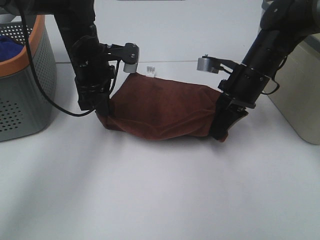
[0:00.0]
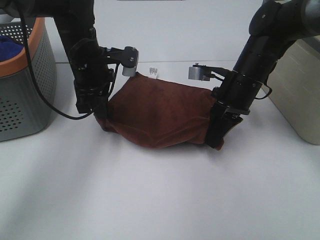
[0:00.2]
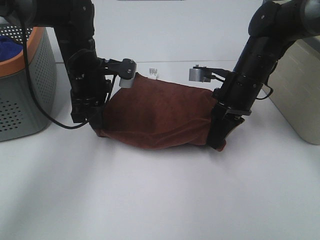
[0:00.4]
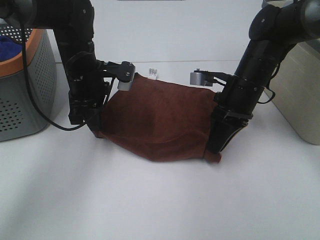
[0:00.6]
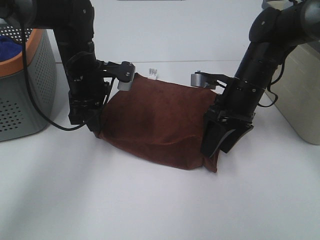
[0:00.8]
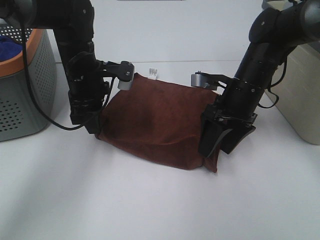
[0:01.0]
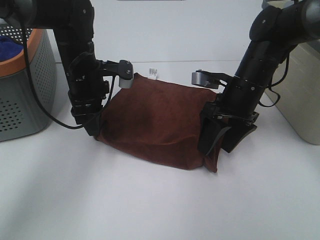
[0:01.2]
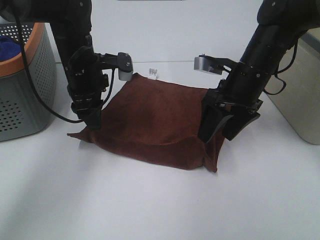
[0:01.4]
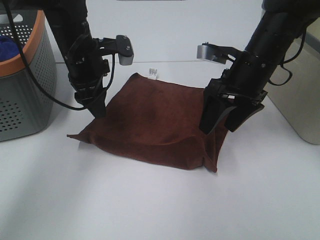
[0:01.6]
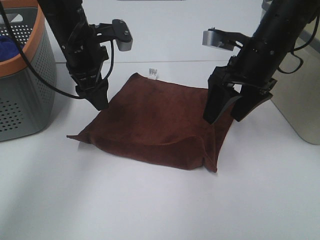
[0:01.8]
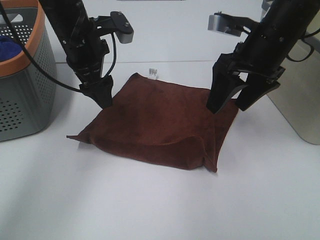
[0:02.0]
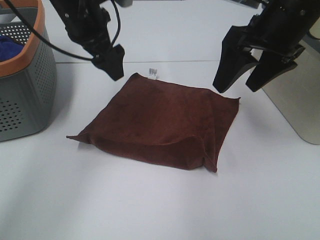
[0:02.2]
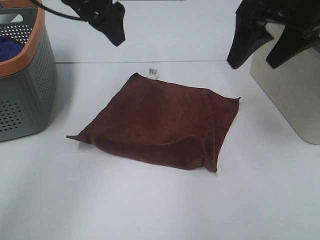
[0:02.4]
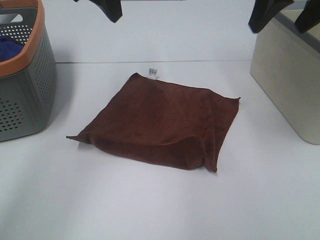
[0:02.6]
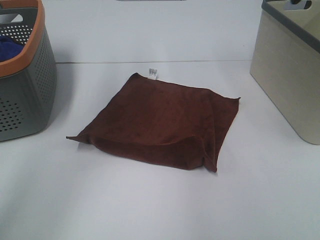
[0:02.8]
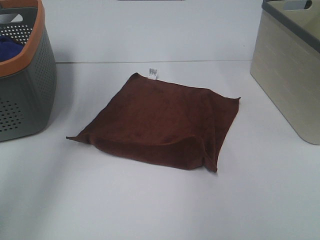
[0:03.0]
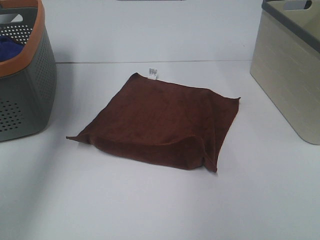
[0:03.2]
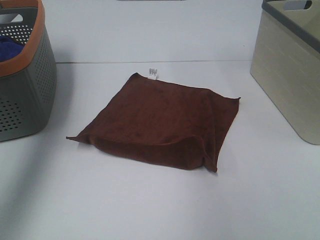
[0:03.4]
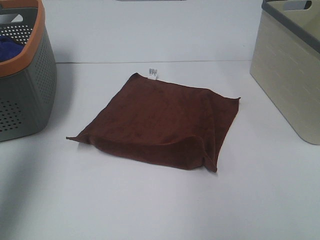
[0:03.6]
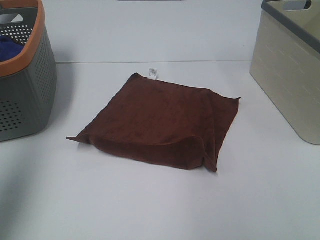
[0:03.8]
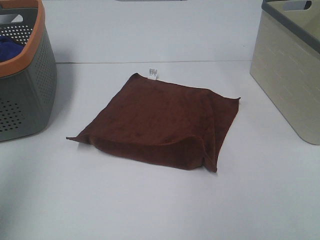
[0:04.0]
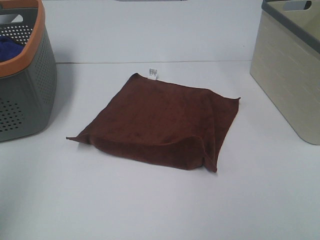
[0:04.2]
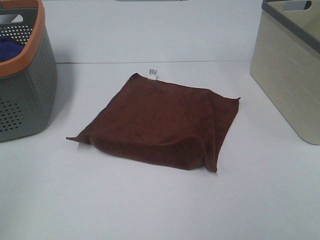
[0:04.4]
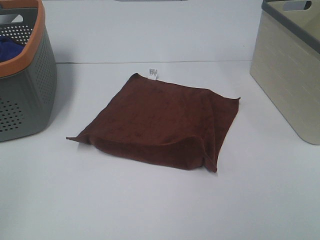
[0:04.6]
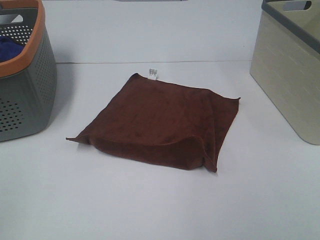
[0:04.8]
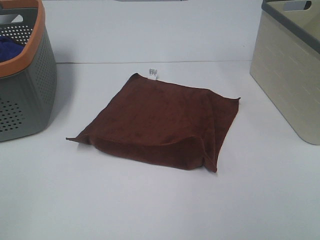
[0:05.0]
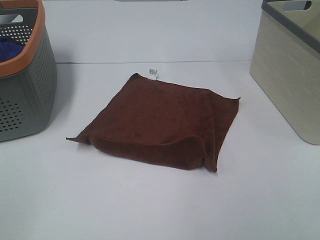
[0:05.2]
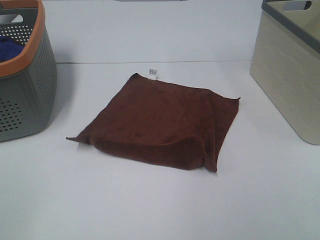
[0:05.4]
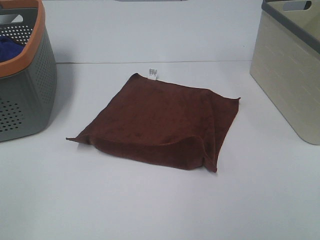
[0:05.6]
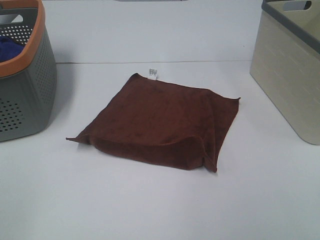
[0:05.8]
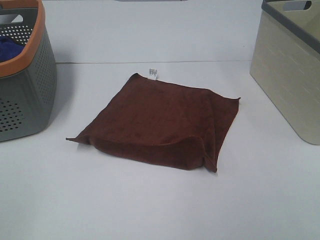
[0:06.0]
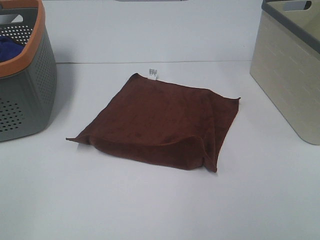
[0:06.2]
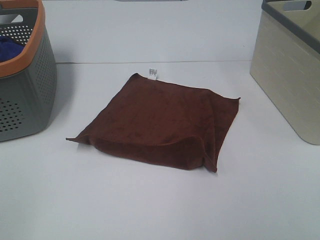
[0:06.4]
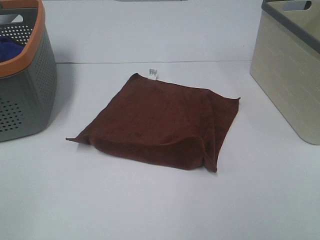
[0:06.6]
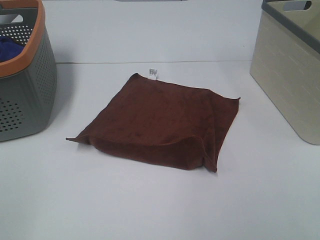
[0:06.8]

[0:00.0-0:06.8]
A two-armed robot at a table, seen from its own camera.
Task of the whole recording: Remove the towel and place it.
0:00.0 to 0:01.4: The left gripper opens its fingers; the right gripper opens its fingers.
0:01.4 to 0:02.8: Both grippers travel together upward, about 25 cm. The left gripper opens its fingers.
0:02.8 to 0:04.0: The left gripper is displaced backward and to the left by about 30 cm.
0:04.0 to 0:05.4: The left gripper is displaced backward and downward by approximately 20 cm.
0:05.4 to 0:06.8: Both grippers stay about where they are.

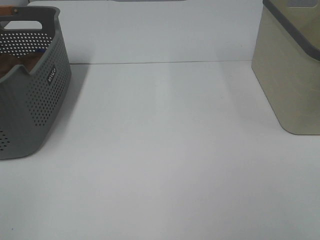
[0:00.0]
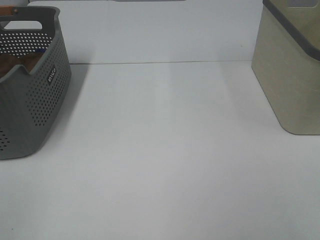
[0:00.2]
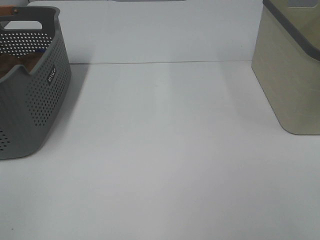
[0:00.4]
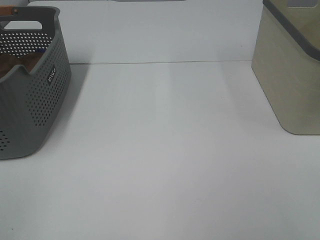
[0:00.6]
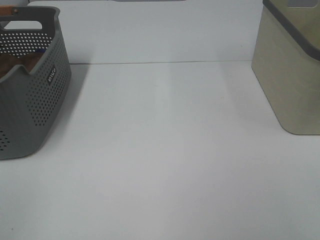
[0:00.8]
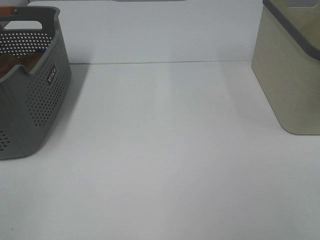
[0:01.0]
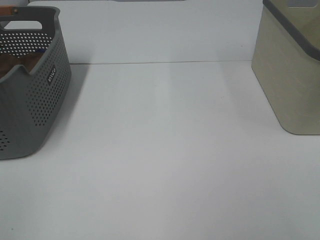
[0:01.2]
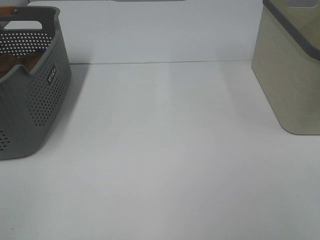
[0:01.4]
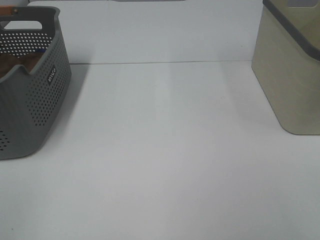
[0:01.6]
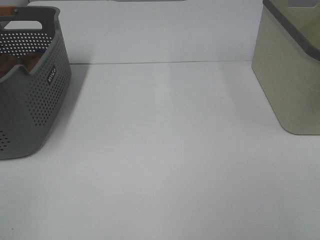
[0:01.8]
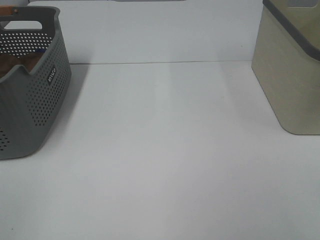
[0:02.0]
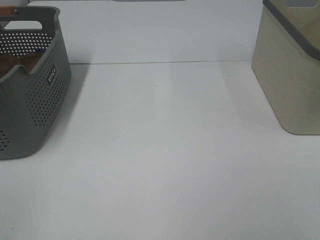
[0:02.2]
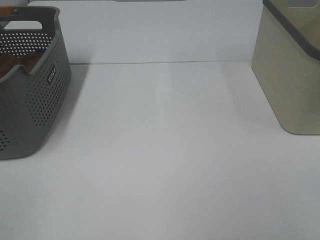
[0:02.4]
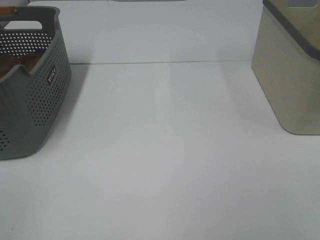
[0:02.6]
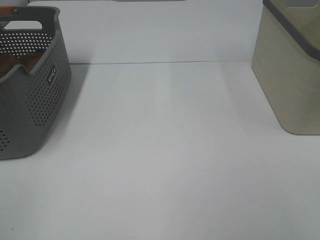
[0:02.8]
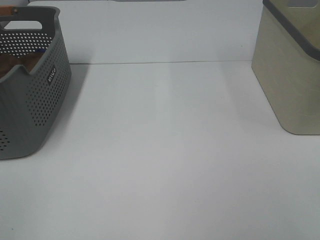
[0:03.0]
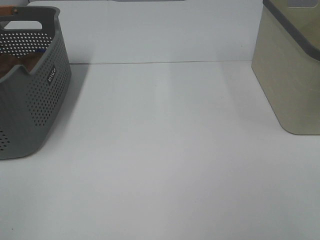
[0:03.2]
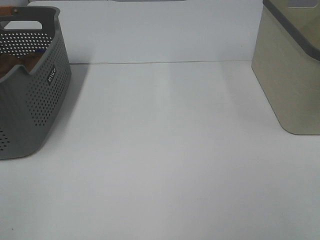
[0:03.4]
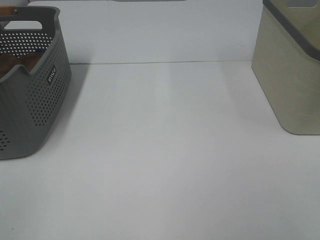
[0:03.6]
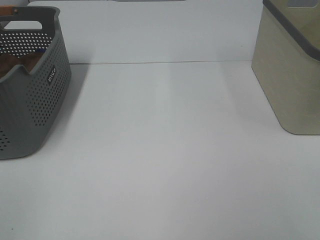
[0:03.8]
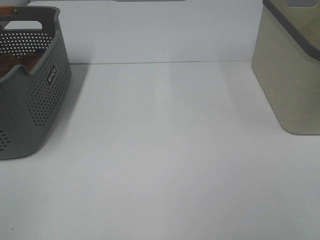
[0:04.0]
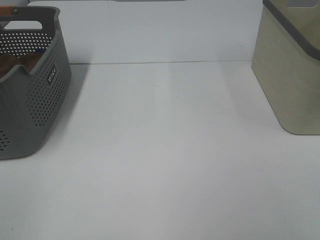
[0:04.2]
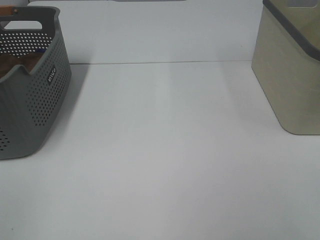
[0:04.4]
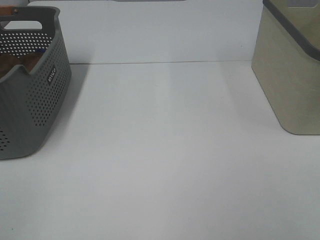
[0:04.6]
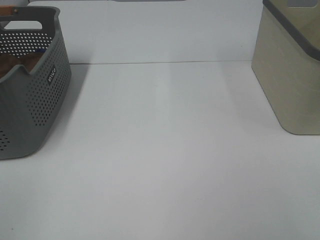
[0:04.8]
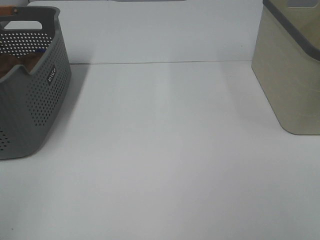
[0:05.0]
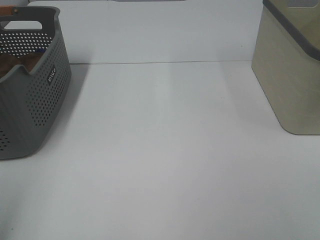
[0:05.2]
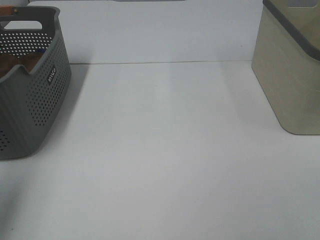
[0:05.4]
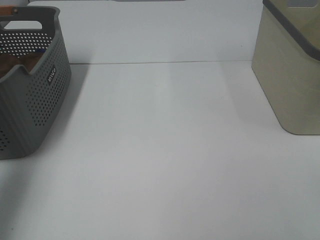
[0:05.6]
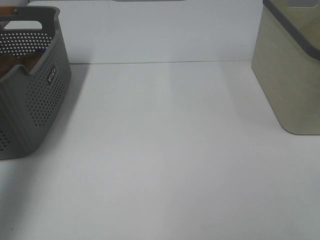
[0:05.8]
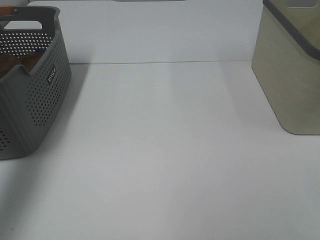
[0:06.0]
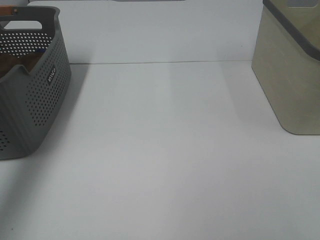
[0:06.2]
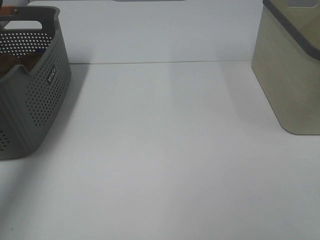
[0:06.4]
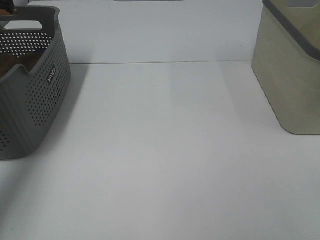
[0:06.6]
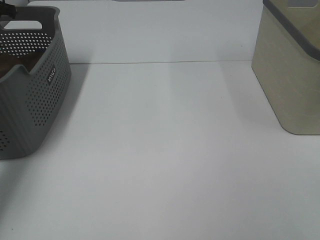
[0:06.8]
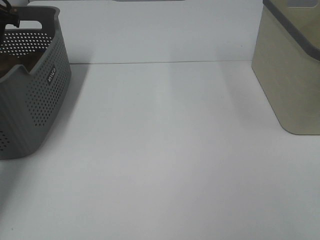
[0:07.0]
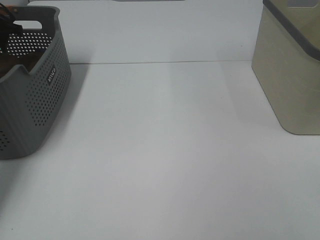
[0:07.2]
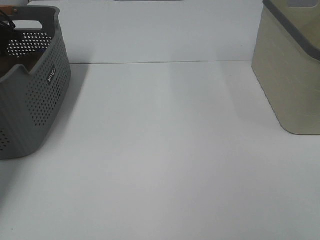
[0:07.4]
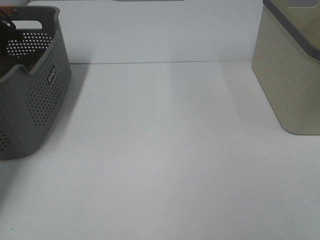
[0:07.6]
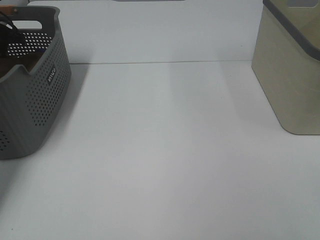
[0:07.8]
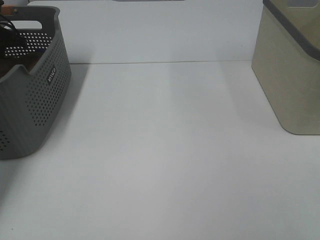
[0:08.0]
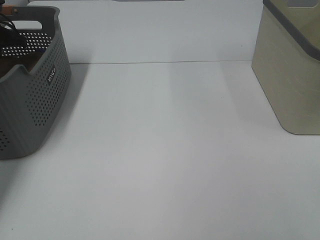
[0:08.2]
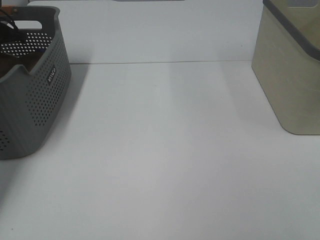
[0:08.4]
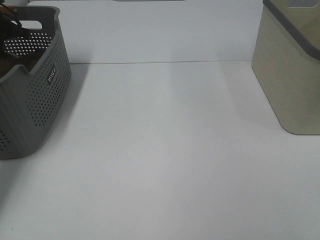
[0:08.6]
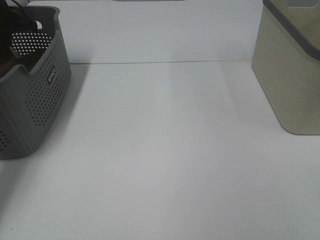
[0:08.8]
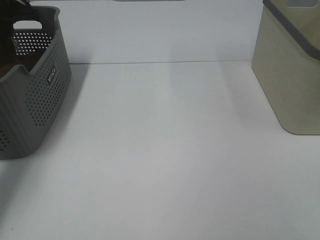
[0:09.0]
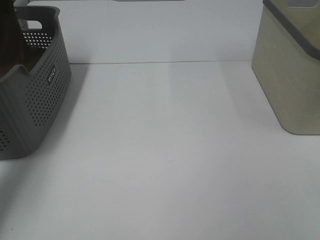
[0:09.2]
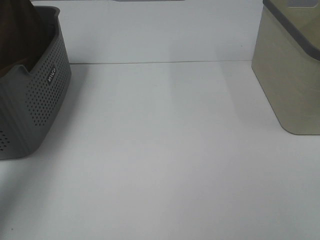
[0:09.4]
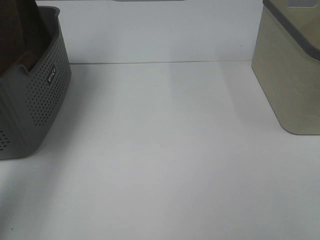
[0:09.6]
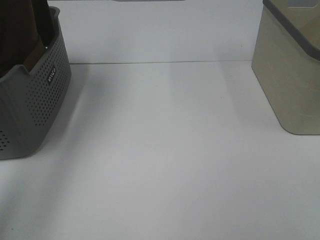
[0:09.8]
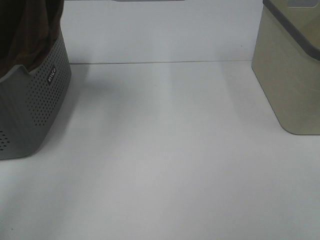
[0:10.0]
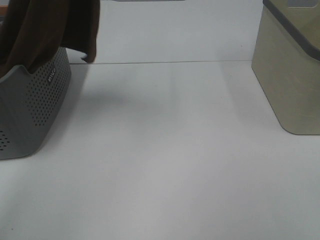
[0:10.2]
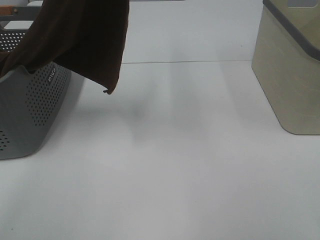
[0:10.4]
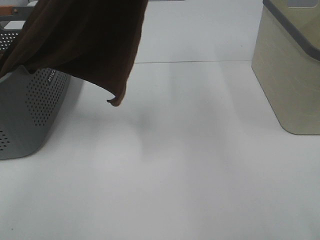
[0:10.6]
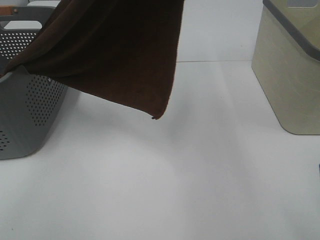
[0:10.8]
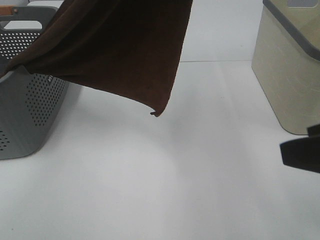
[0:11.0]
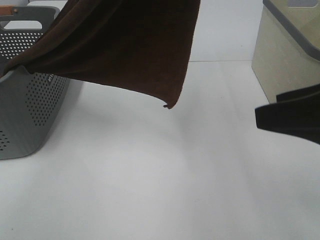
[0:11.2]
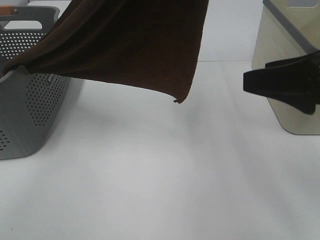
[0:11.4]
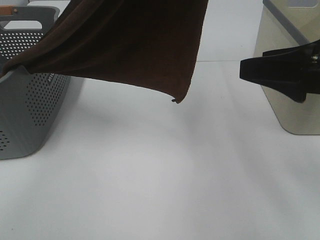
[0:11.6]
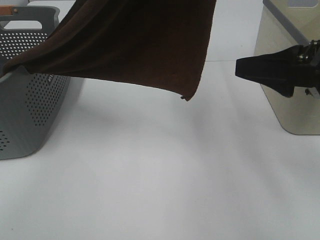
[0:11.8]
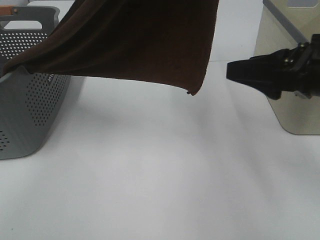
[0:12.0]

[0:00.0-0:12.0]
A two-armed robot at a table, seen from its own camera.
Task of the whole recording: Remove the towel and place it.
0:00.0 to 0:04.4: Neither gripper changes place.
0:04.4 to 0:06.0: The left gripper travels forward by about 30 cm.
0:06.0 to 0:07.6: The left gripper shifts some 25 cm forward and downward.
0:07.6 to 0:09.0: The left gripper goes approximately 5 cm to the right and upward, and closes.
0:09.0 to 0:10.4: The left gripper goes approximately 40 cm upward, to the right and backward.
0:10.4 to 0:12.0: The right gripper travels forward by approximately 20 cm, while the left gripper is displaced to the right by roughly 5 cm.

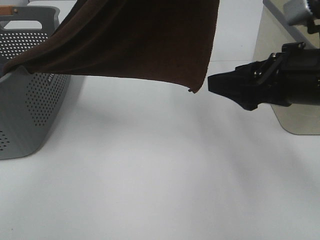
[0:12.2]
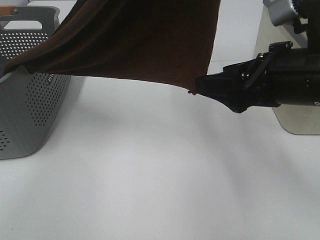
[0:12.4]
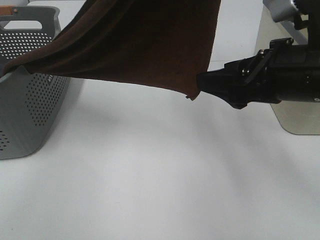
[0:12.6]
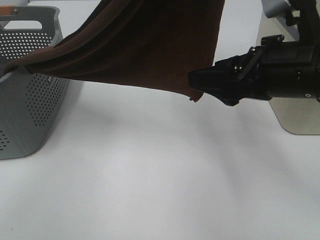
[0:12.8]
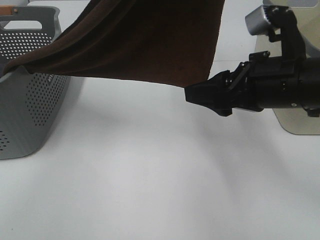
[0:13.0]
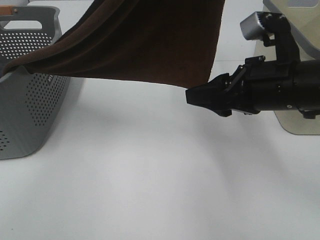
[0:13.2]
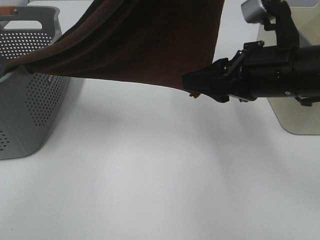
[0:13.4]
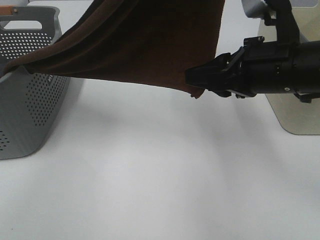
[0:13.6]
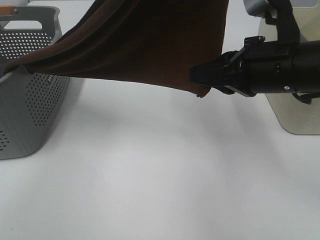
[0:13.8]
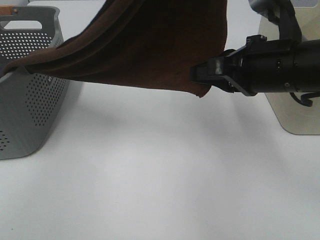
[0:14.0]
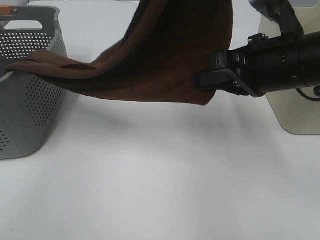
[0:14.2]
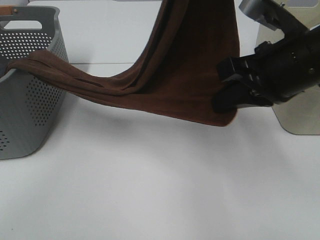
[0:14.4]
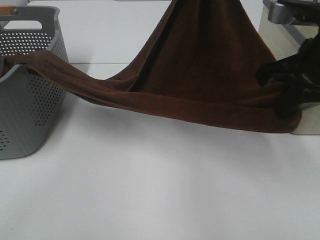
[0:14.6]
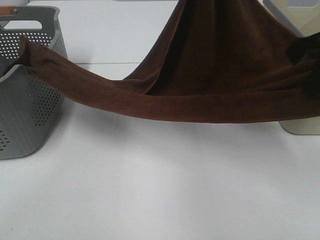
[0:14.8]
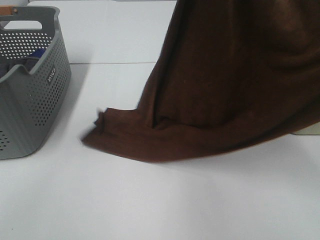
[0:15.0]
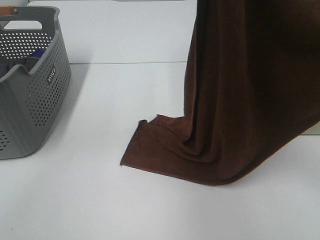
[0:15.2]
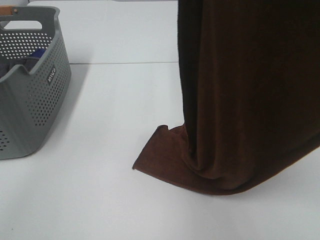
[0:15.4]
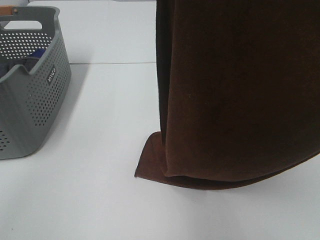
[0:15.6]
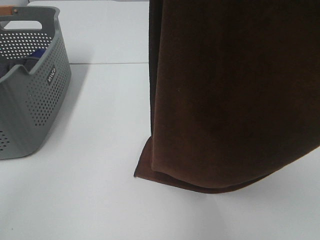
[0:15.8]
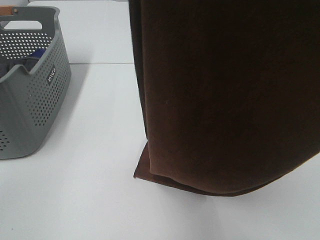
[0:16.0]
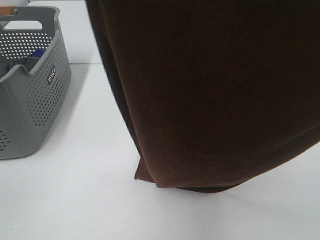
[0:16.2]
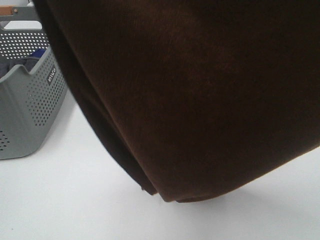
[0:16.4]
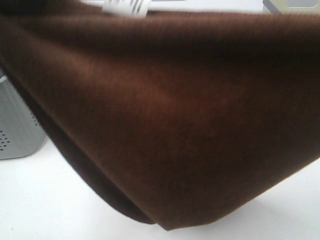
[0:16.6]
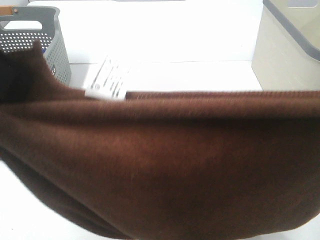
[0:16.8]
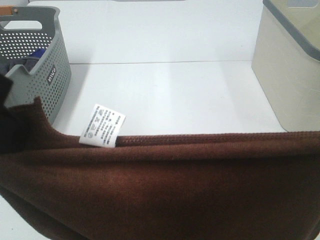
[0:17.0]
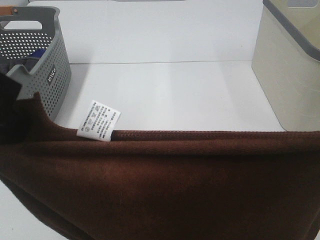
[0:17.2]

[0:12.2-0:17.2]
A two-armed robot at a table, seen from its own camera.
Task of the whole recording: Remove the towel and place it.
0:12.2 to 0:13.8: The right gripper closes up.
0:13.8 to 0:15.6: The left gripper shifts some 5 cm backward, and moves some 10 cm downward and comes back. The right gripper shifts approximately 25 cm upward, backward and to the right.
0:15.6 to 0:17.2: The left gripper is displaced downward, to the left and backward by some 25 cm; the right gripper goes approximately 10 cm downward.
